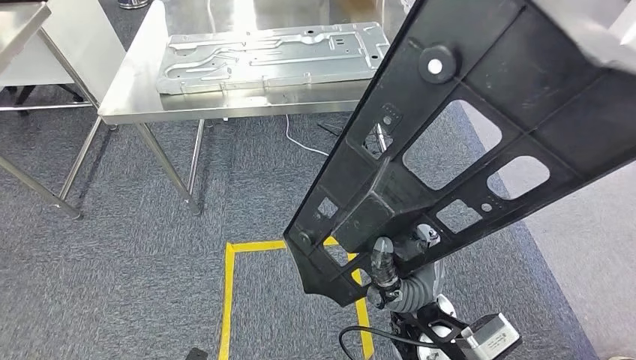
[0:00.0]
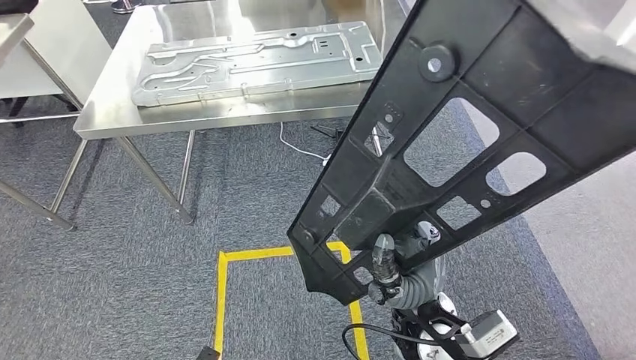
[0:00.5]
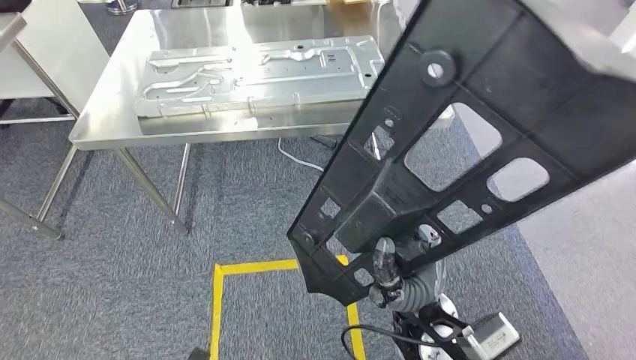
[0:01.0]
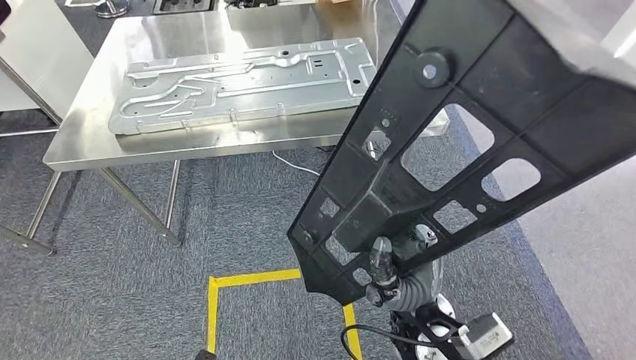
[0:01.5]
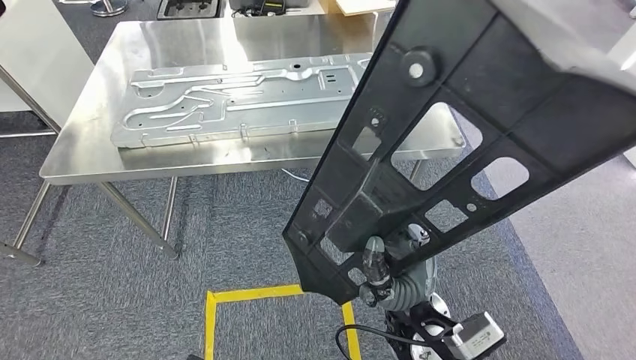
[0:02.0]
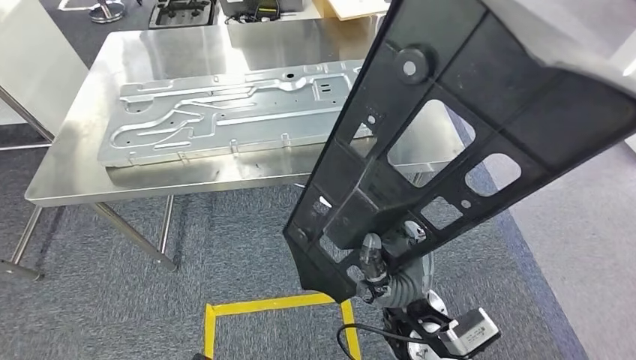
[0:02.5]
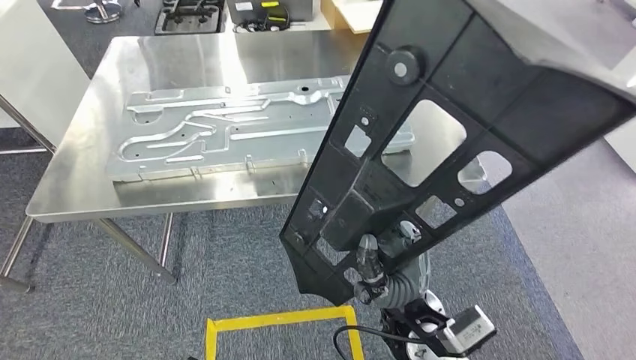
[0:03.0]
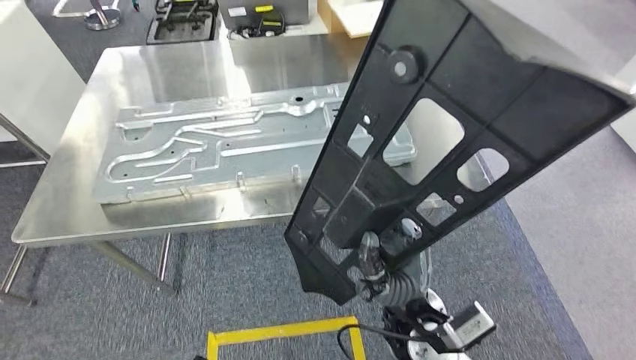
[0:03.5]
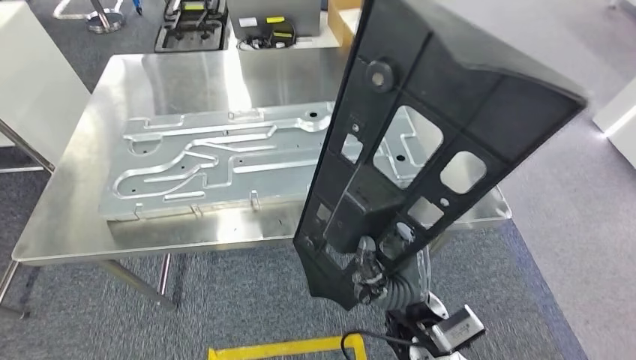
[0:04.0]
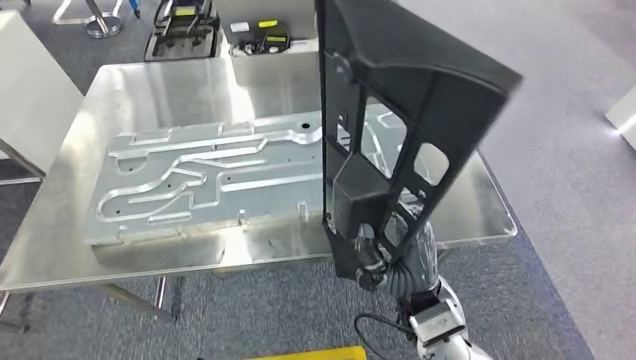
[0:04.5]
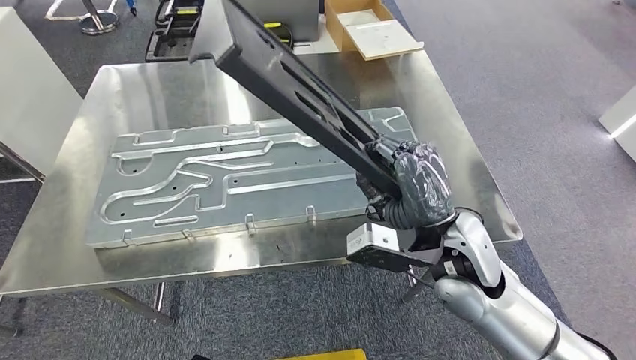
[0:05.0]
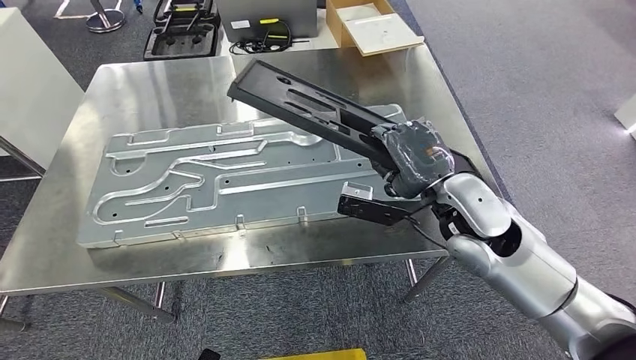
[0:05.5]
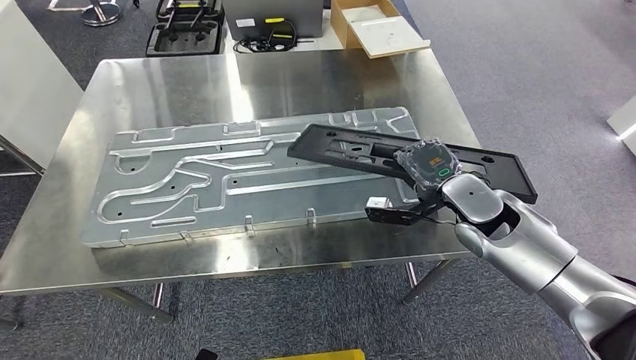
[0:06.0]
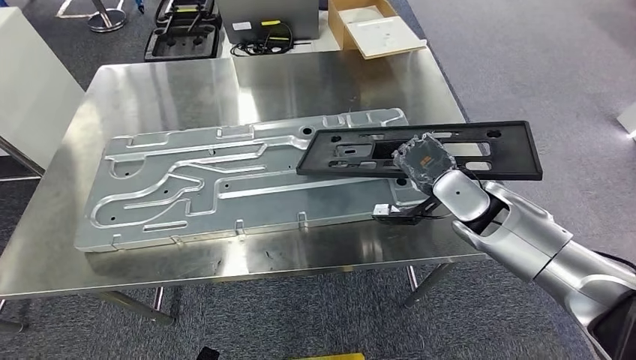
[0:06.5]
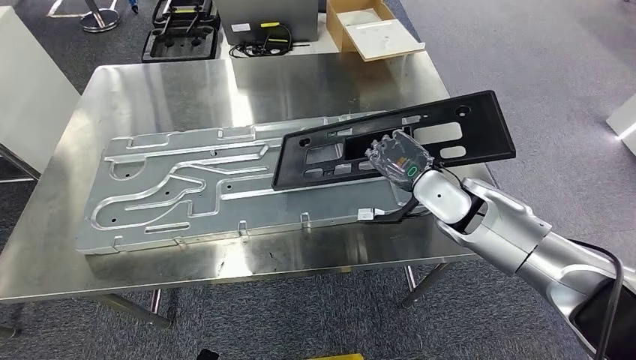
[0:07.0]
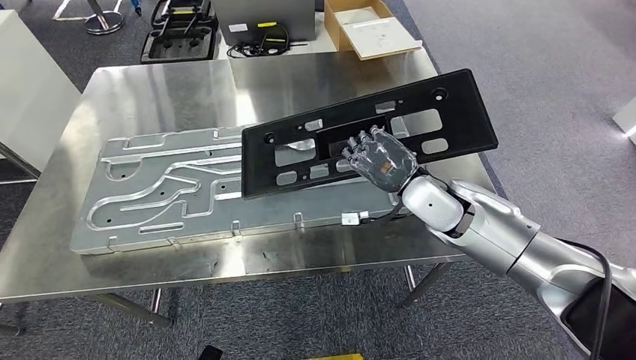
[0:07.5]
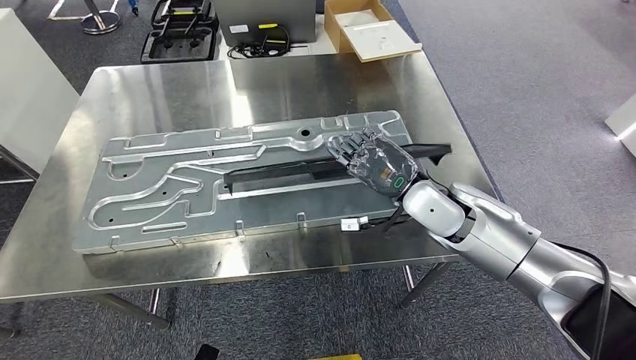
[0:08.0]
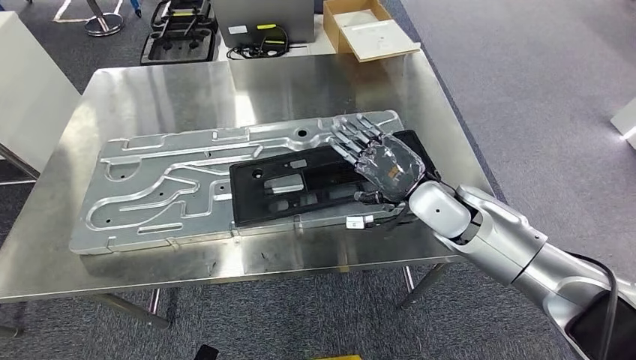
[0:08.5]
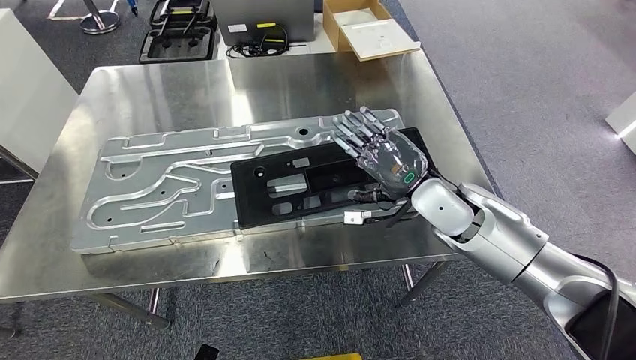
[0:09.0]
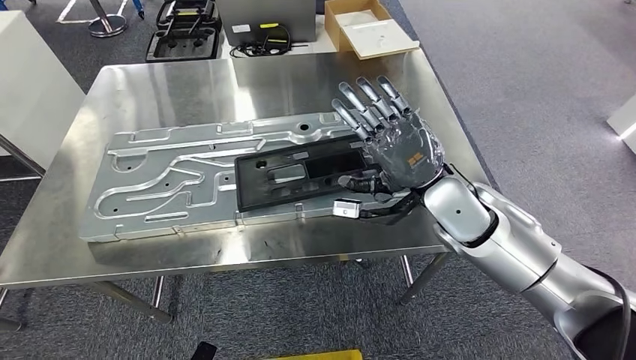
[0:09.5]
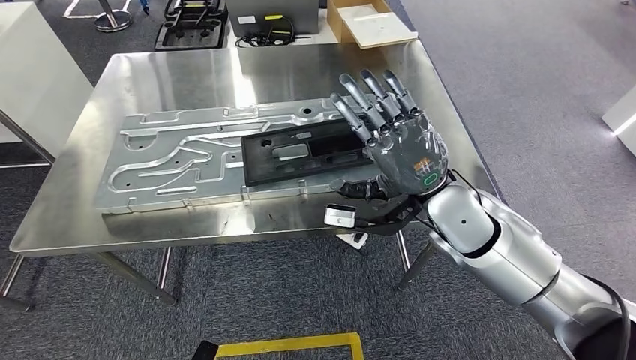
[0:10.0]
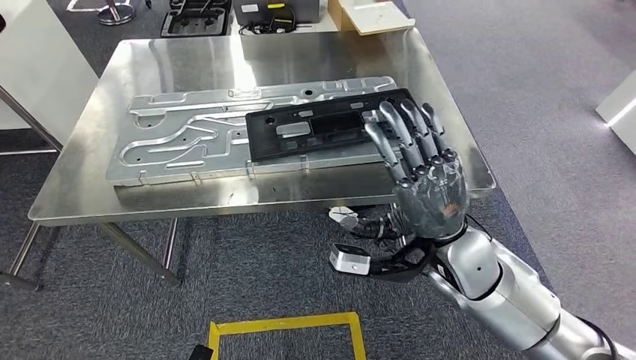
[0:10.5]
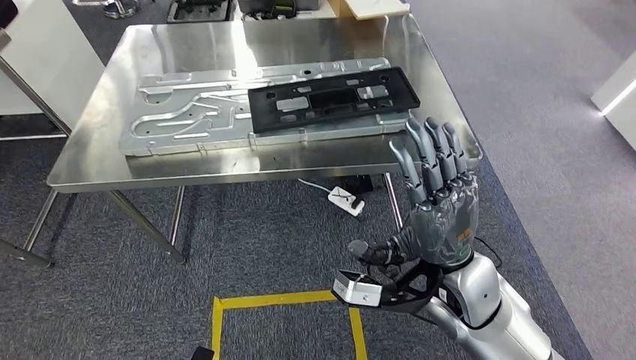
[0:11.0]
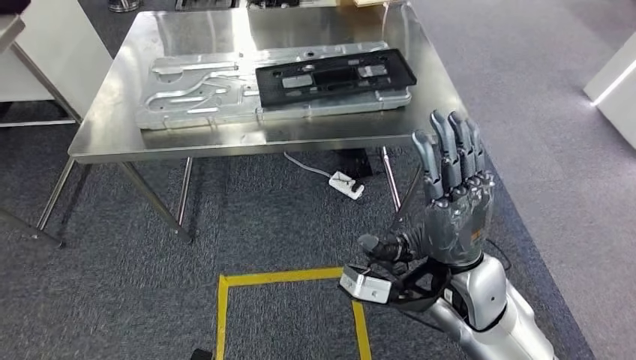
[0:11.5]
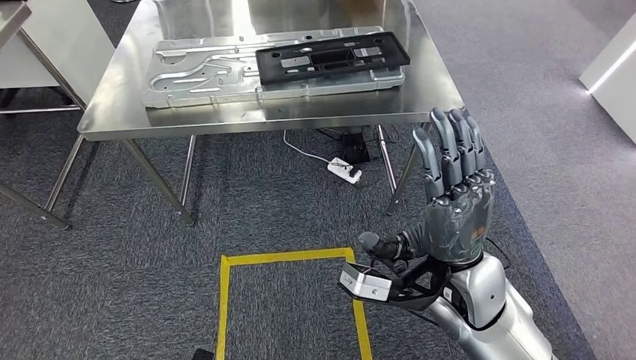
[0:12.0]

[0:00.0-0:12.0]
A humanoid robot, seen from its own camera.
Step, 0:00.0 to 0:04.0: Move the large material to the workbench.

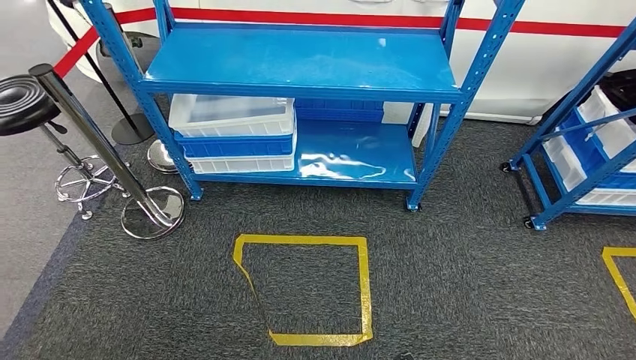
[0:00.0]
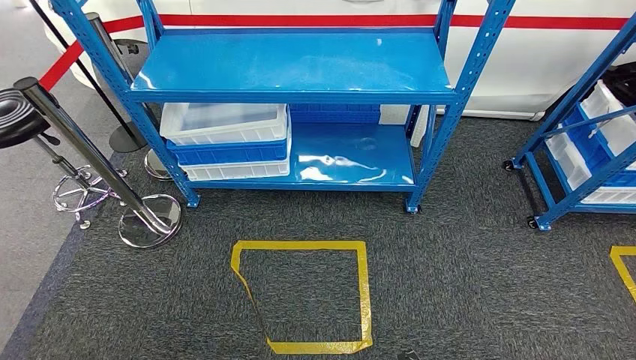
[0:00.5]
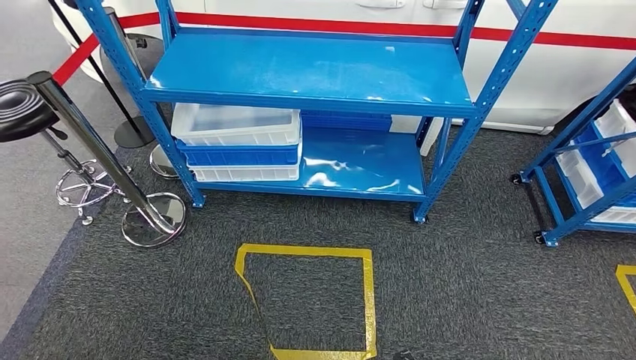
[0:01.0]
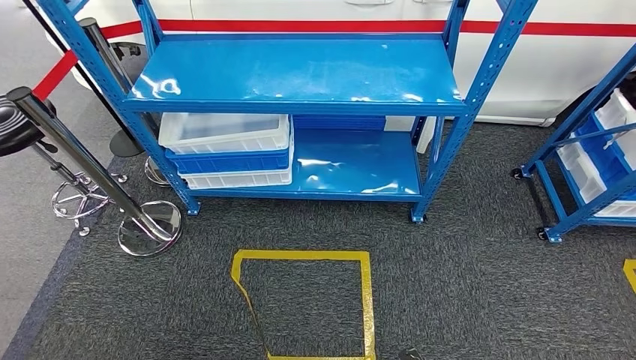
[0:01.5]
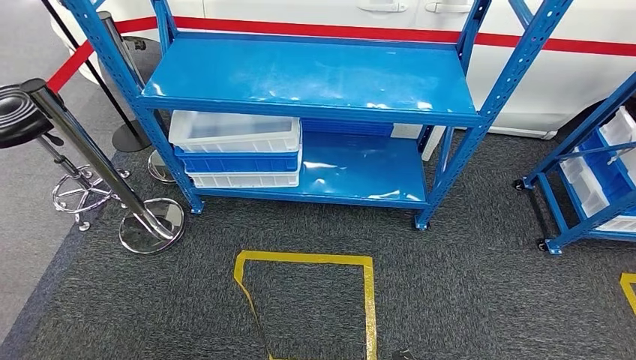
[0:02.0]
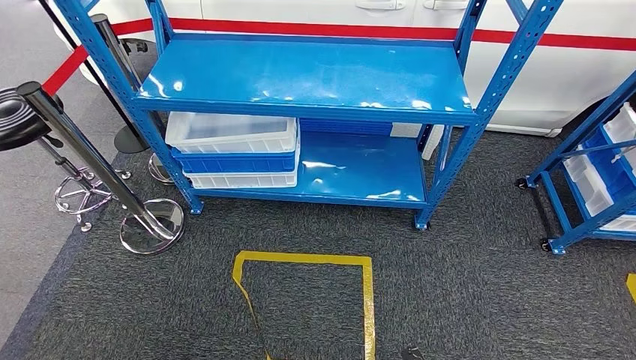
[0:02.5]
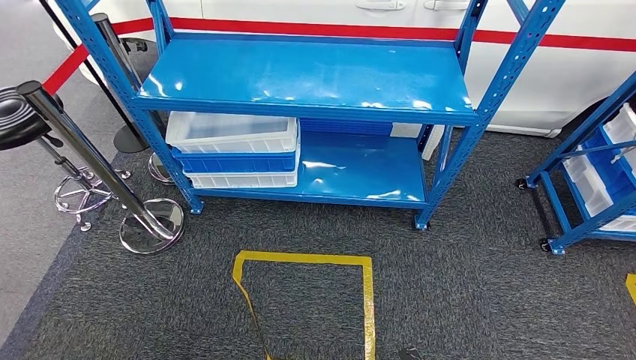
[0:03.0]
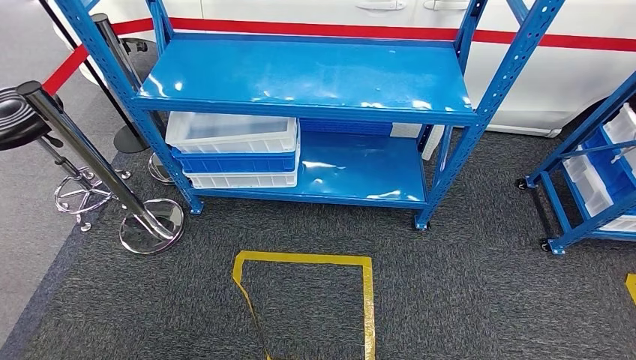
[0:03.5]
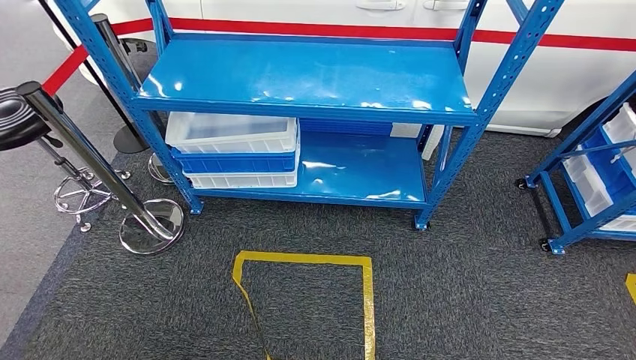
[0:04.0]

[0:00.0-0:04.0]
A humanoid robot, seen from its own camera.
Step, 0:00.0 to 0:03.5: Move to the initial position of the shelf.
0:02.0 to 0:04.0: Both hands move backward, about 5 cm.

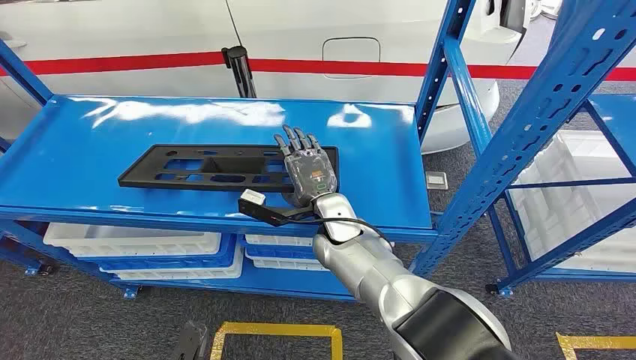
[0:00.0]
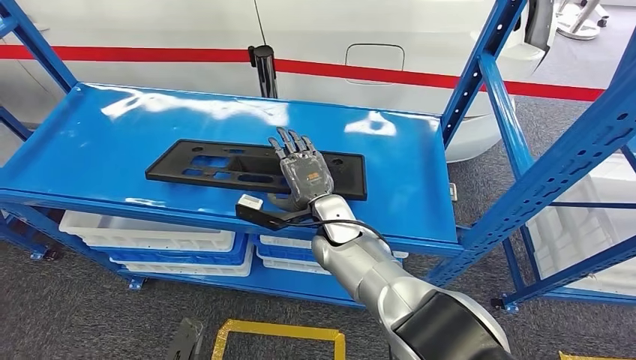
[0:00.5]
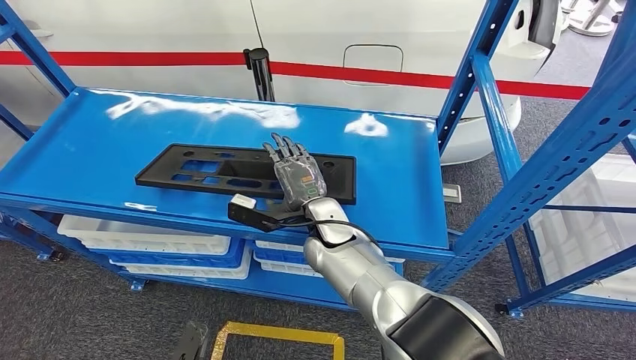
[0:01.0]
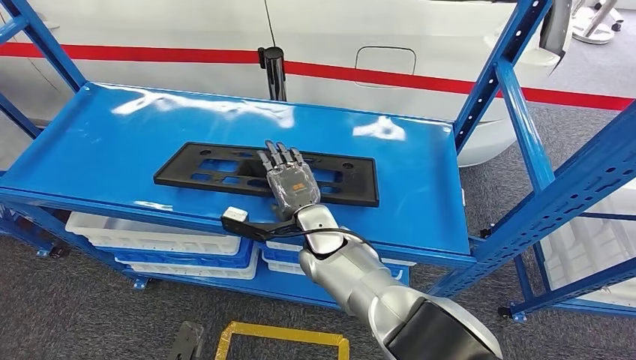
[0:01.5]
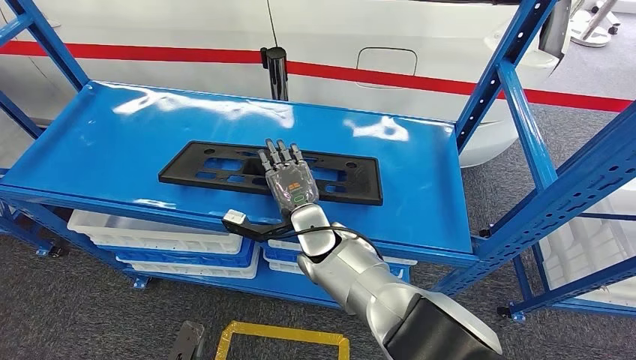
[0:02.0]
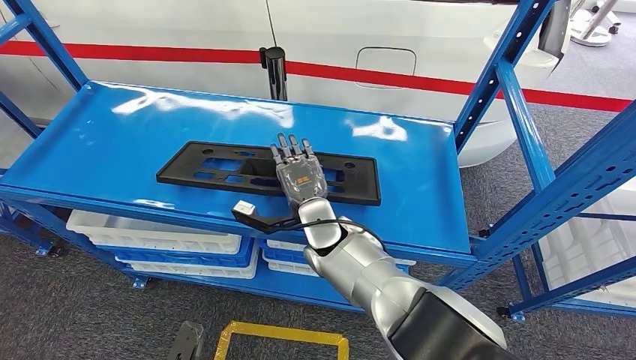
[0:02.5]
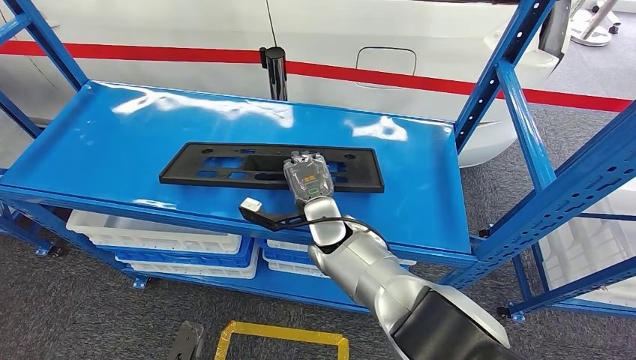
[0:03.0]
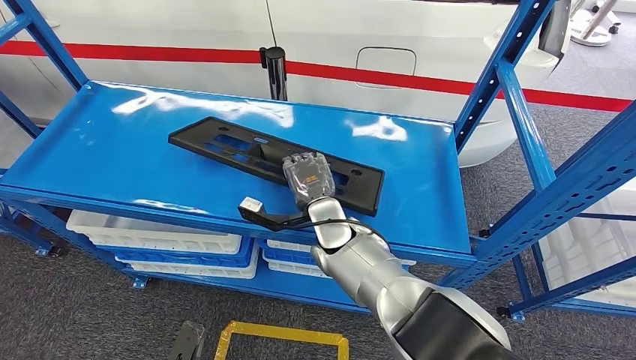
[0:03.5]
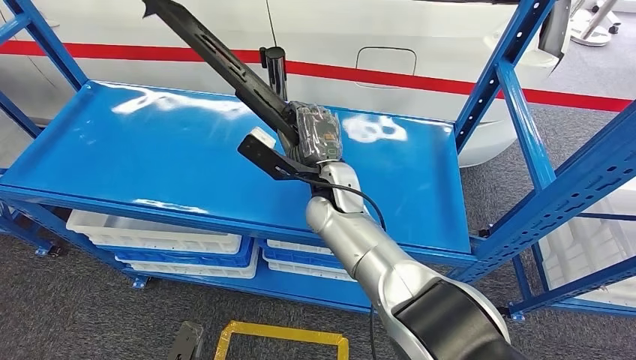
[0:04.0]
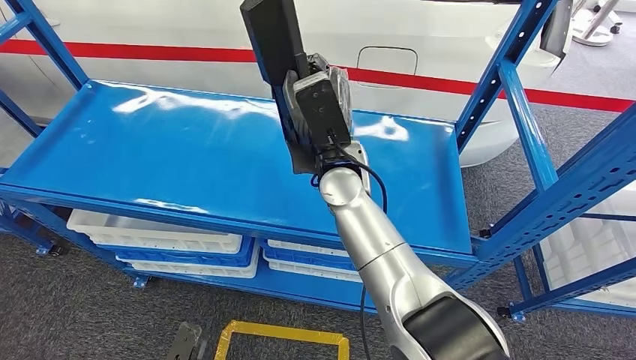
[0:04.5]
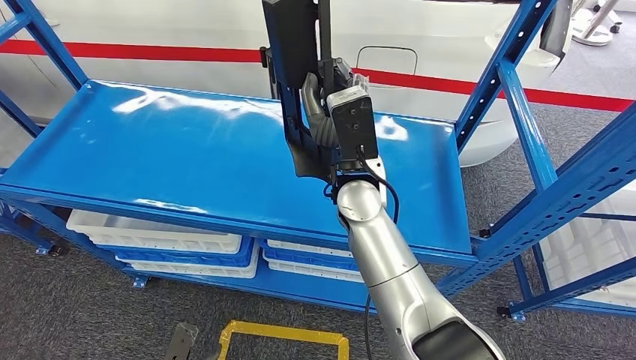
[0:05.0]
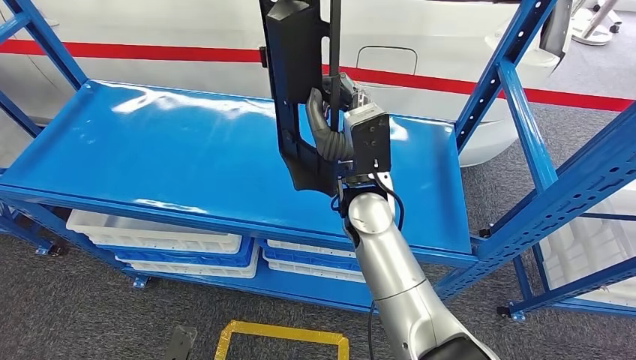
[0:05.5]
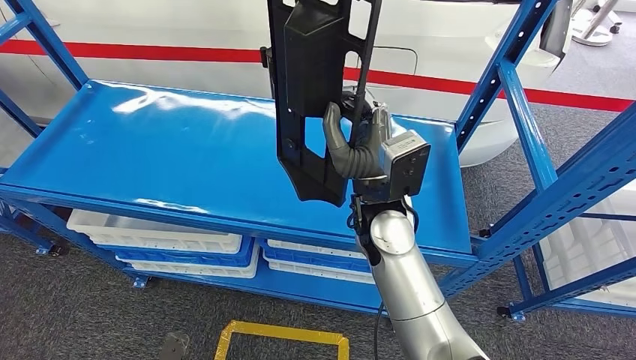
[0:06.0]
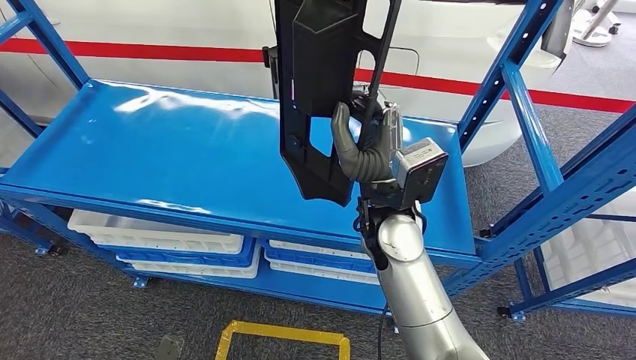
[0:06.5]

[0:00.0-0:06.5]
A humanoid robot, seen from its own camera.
0:02.0 to 0:04.5: The right hand is displaced upward by about 15 cm.
0:04.5 to 0:06.5: The right hand travels backward by about 5 cm.
